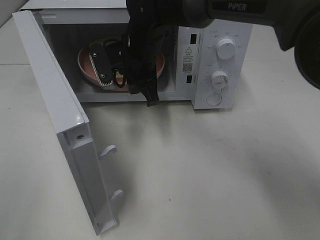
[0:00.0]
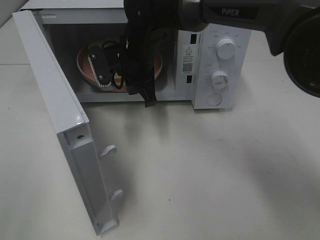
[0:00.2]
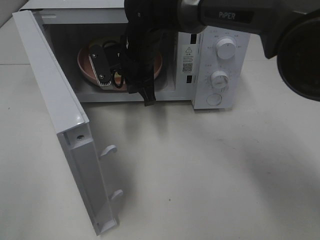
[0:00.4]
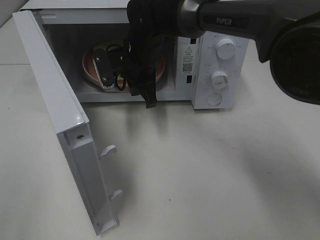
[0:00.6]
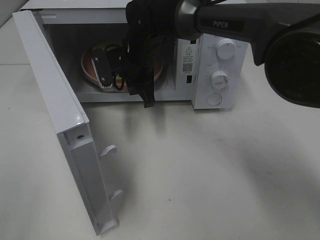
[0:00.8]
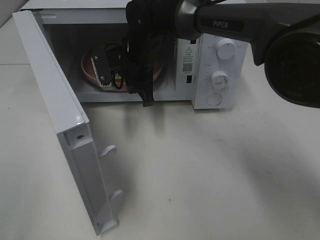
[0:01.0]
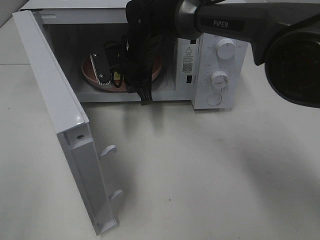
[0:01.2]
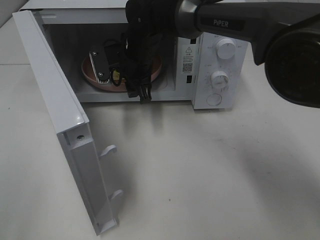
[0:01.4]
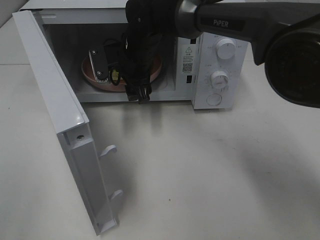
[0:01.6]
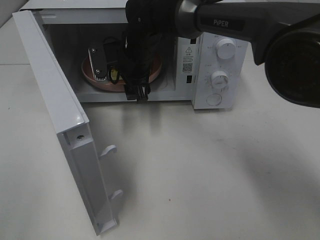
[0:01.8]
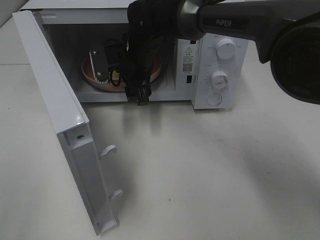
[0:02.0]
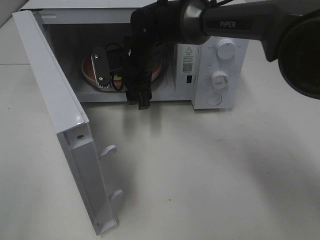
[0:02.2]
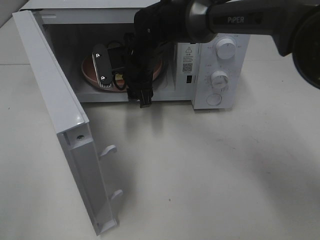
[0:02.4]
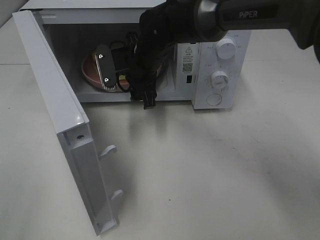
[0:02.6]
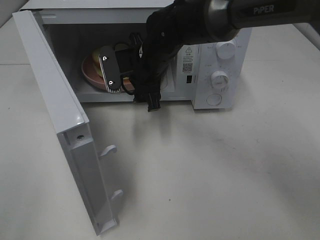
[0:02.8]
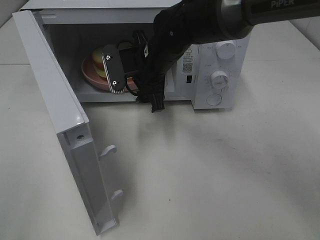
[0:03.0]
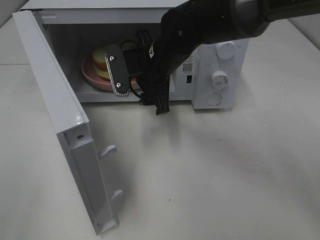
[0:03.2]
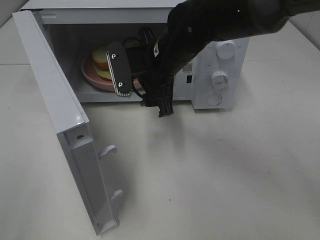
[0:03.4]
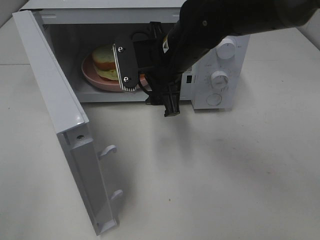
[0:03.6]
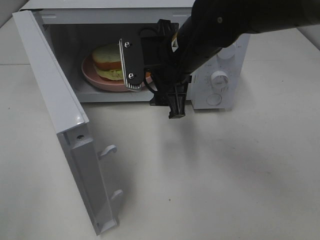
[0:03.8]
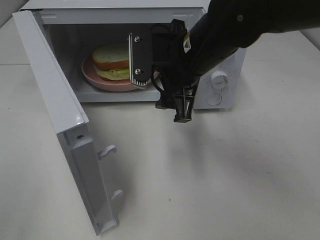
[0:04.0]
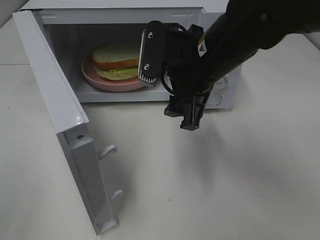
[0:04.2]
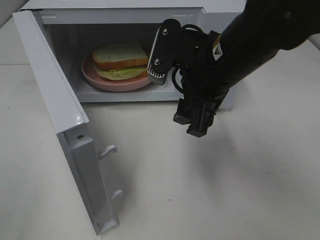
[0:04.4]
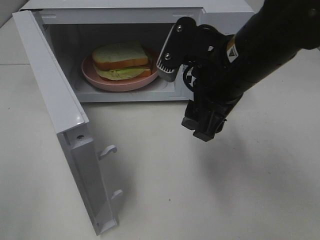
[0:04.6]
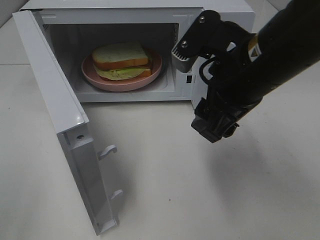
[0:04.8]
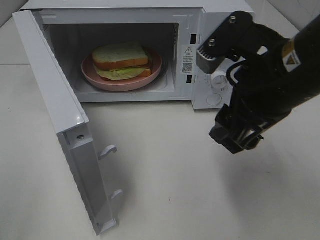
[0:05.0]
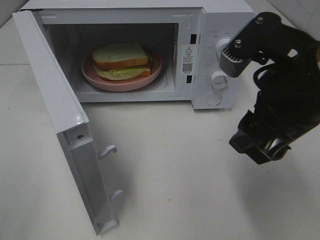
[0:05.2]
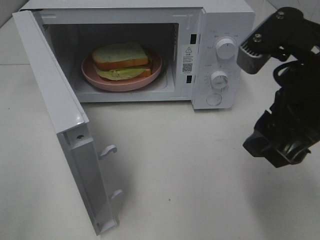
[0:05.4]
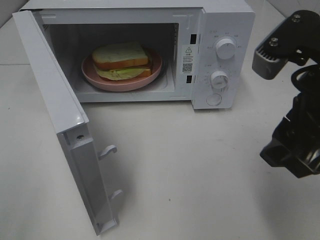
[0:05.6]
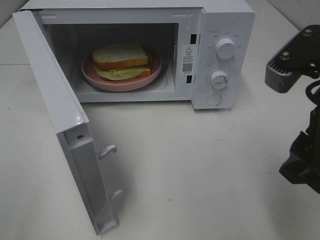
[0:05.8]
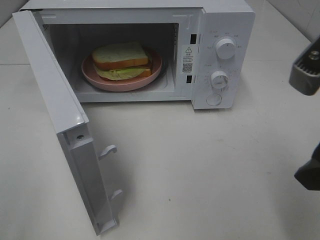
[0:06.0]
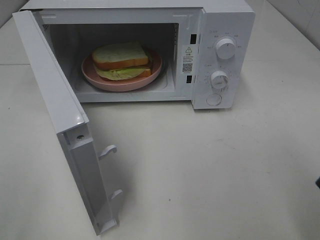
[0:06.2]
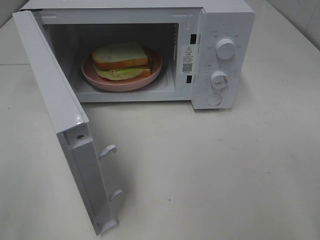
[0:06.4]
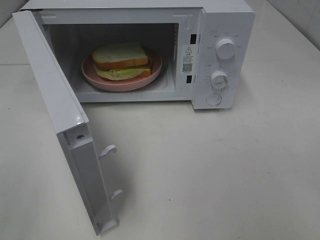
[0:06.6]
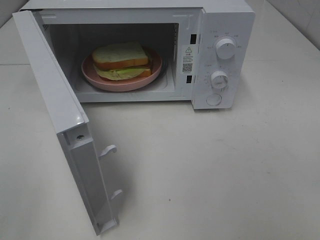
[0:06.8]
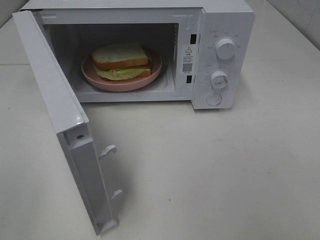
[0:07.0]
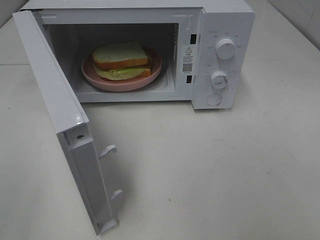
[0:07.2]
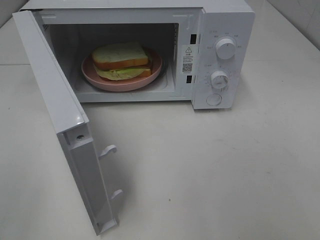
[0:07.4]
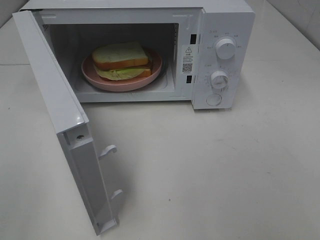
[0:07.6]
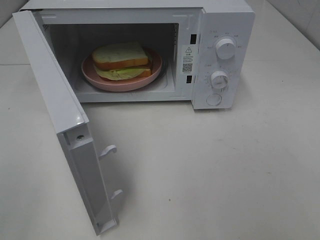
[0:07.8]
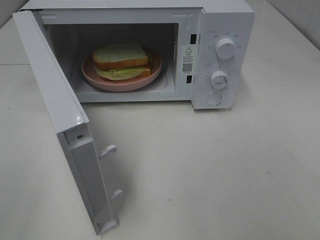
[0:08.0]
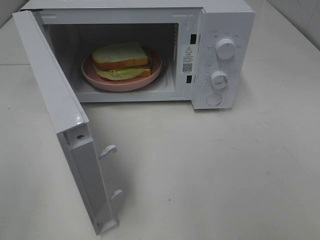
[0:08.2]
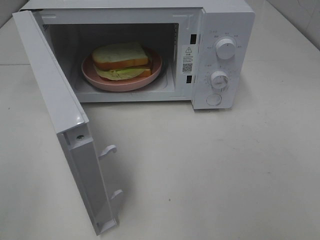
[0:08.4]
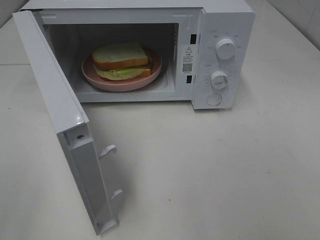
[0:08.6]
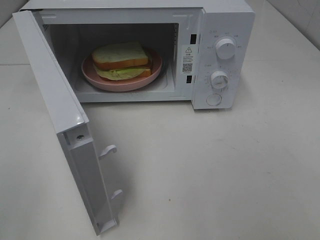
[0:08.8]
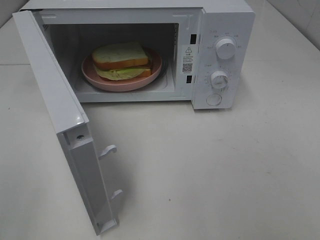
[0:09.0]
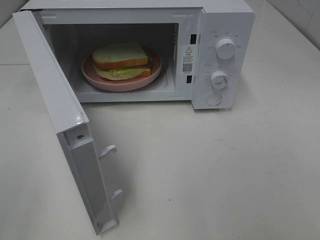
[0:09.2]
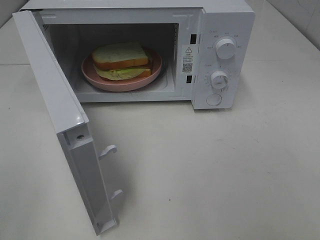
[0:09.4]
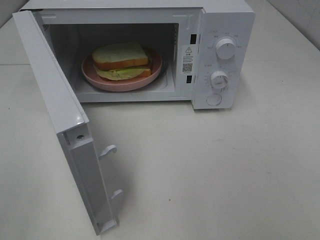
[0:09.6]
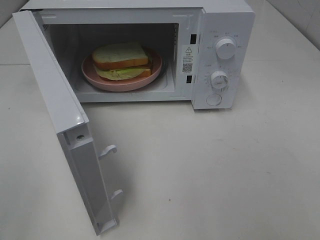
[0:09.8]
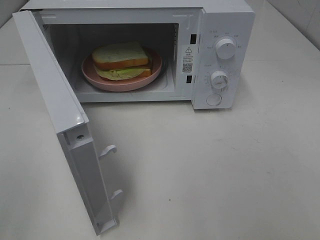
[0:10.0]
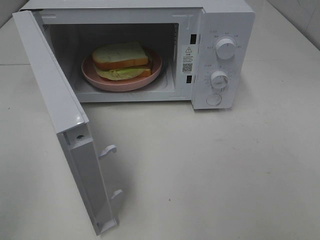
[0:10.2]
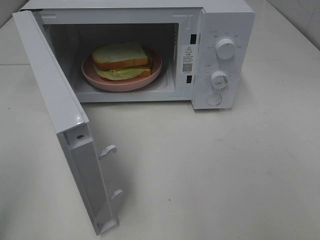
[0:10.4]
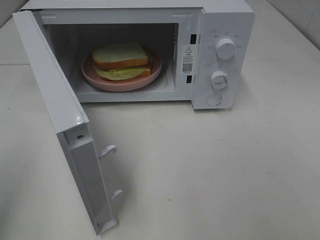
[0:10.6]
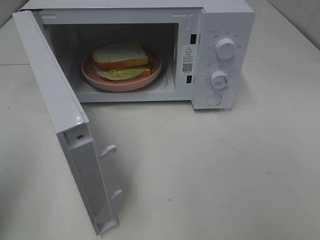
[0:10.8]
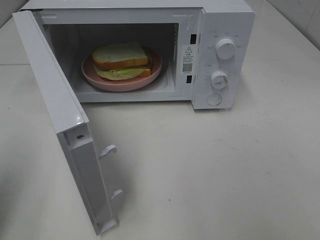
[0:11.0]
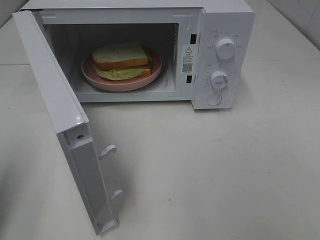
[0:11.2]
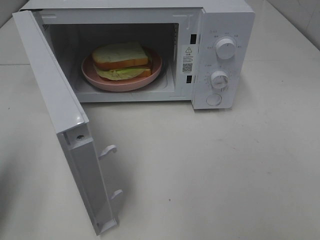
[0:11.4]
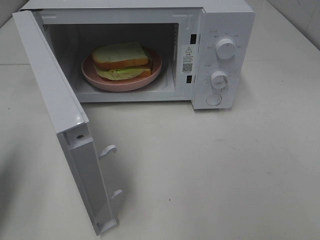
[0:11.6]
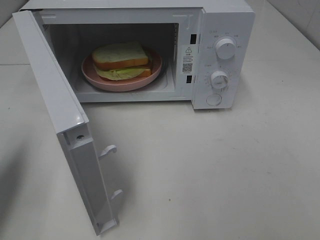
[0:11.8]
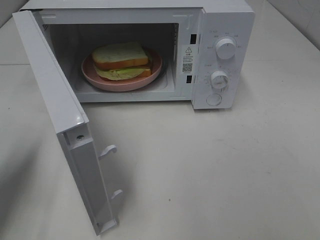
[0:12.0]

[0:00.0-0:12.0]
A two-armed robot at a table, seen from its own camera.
Task of the whole recording: Heat Sandwich.
Step, 0:00.0 to 0:03.2: Right hand: place the plate in the microwave.
0:00.0 to 0:01.6: The right gripper opens.
0:01.6 to 0:03.0: The right gripper moves some 5 cm.
0:03.0 to 0:04.4: The right gripper goes roughly 15 cm backward, to the right and upward.
0:04.4 to 0:06.0: The right gripper goes roughly 15 cm backward and to the right.
0:06.0 to 0:07.6: The right gripper is displaced backward and to the right by approximately 15 cm.
0:07.6 to 0:09.0: Both grippers stay about where they are.
0:10.4 to 0:12.0: The left gripper travels forward and downward by approximately 15 cm, and closes up.

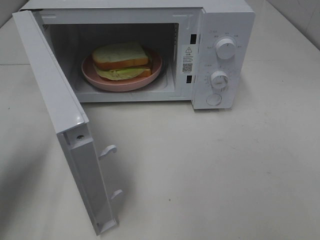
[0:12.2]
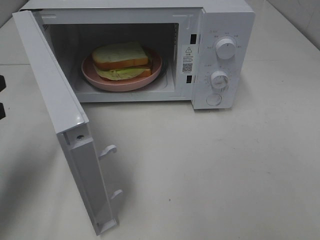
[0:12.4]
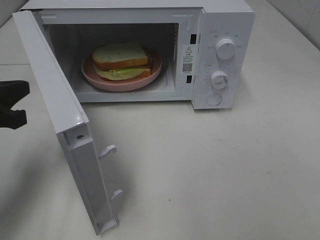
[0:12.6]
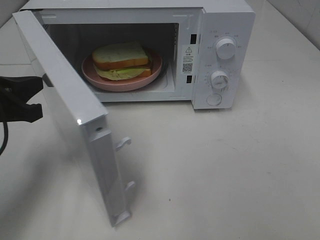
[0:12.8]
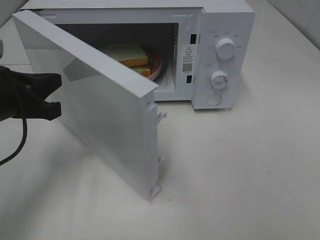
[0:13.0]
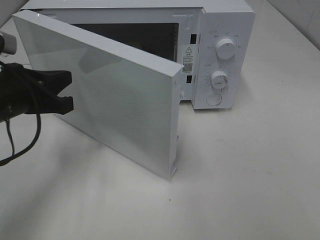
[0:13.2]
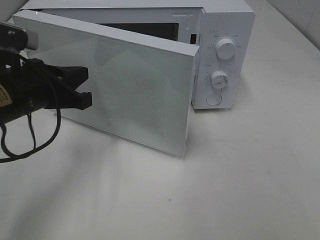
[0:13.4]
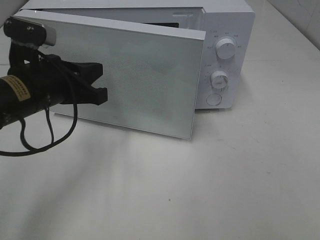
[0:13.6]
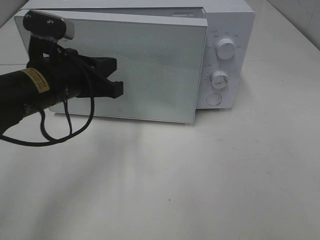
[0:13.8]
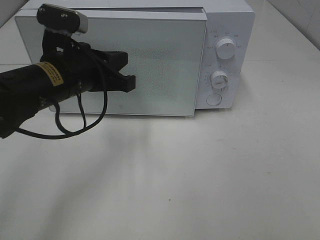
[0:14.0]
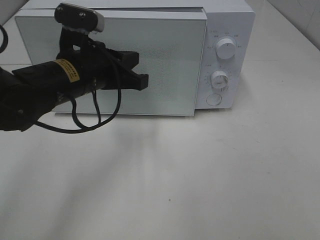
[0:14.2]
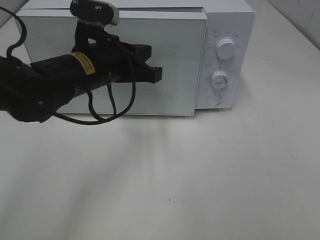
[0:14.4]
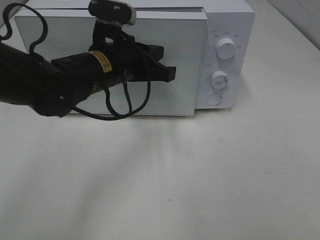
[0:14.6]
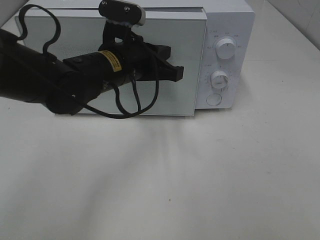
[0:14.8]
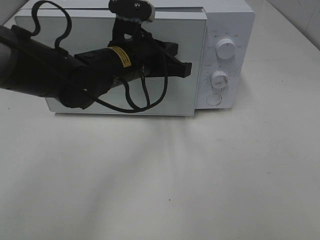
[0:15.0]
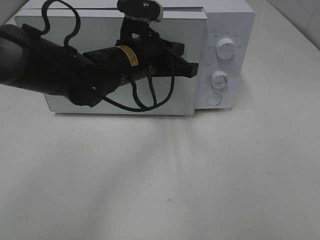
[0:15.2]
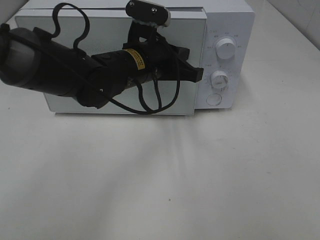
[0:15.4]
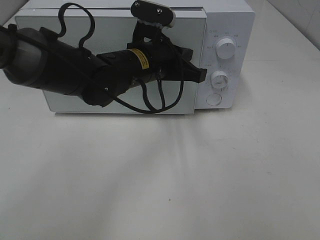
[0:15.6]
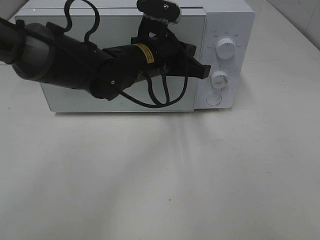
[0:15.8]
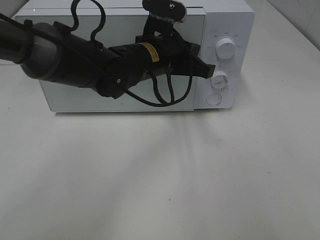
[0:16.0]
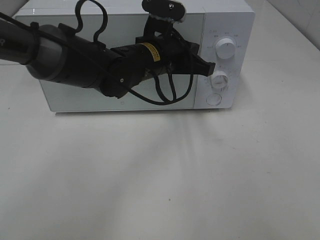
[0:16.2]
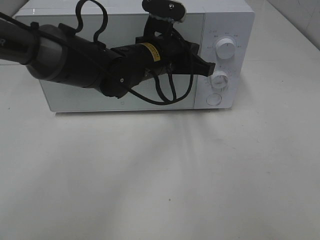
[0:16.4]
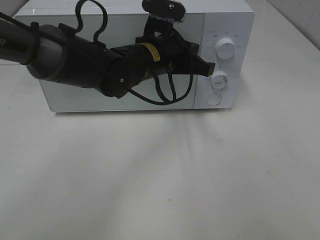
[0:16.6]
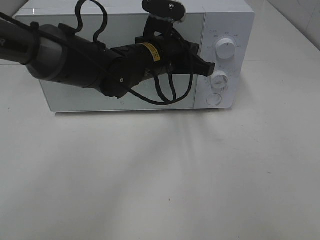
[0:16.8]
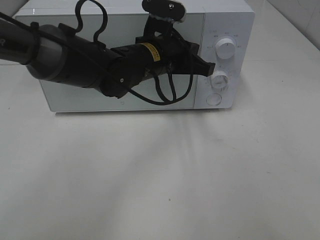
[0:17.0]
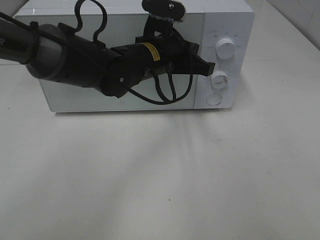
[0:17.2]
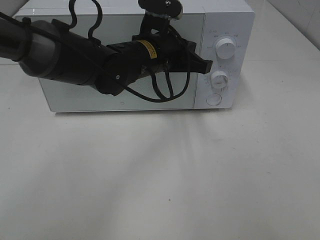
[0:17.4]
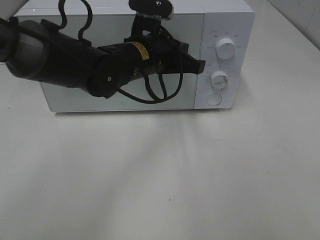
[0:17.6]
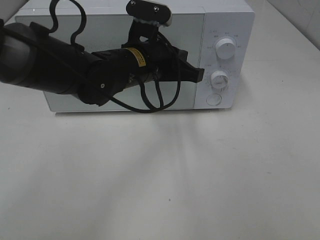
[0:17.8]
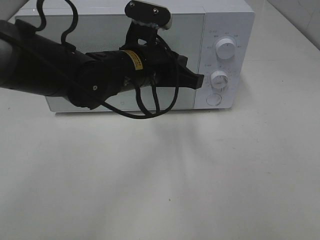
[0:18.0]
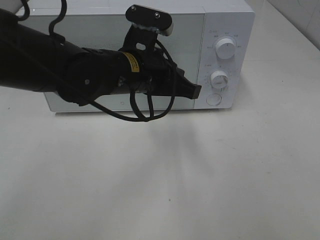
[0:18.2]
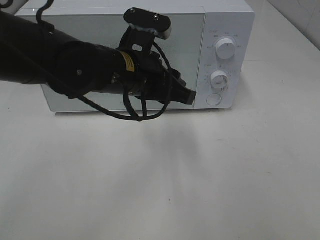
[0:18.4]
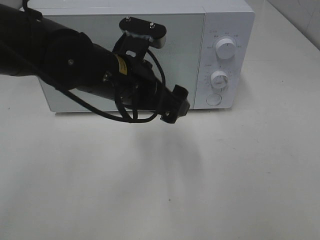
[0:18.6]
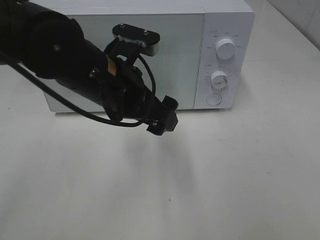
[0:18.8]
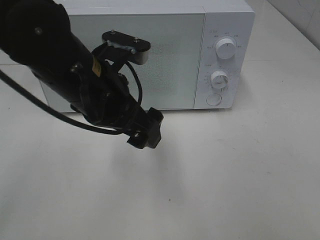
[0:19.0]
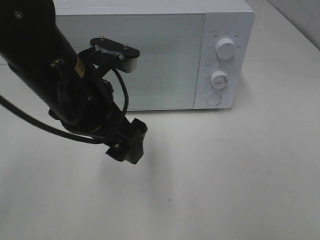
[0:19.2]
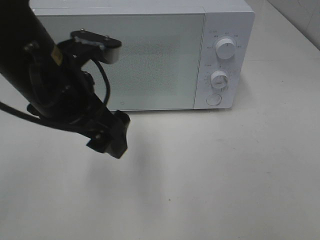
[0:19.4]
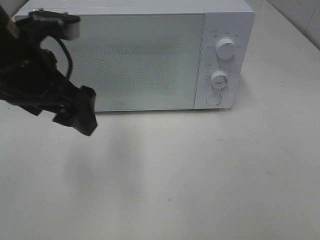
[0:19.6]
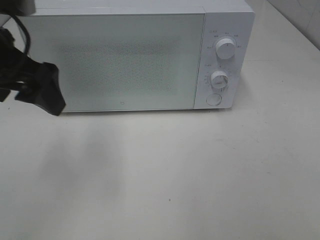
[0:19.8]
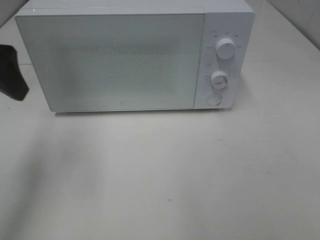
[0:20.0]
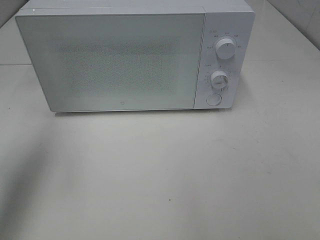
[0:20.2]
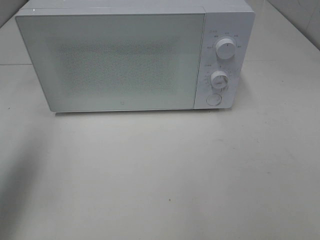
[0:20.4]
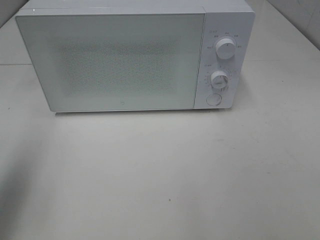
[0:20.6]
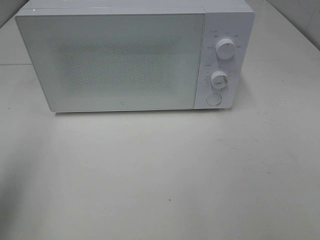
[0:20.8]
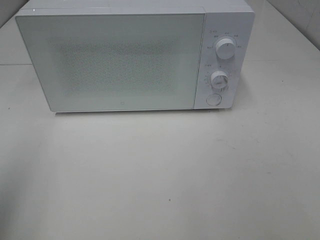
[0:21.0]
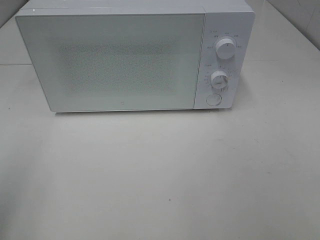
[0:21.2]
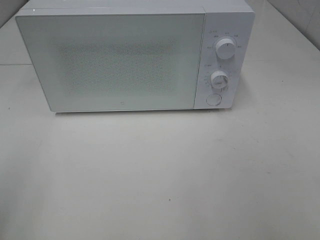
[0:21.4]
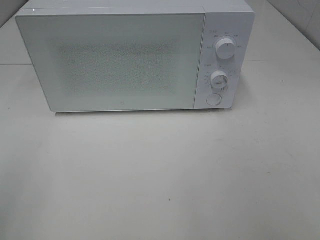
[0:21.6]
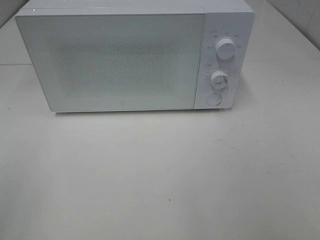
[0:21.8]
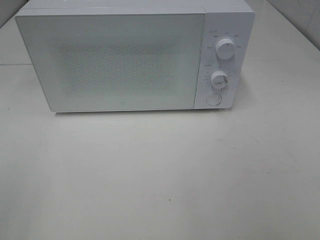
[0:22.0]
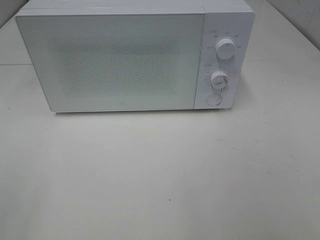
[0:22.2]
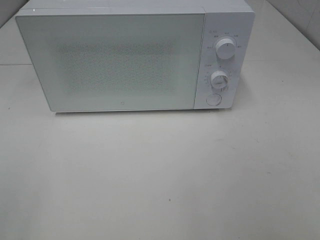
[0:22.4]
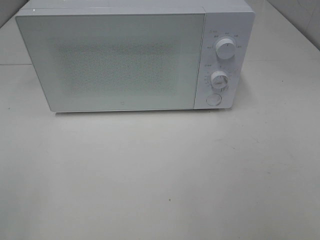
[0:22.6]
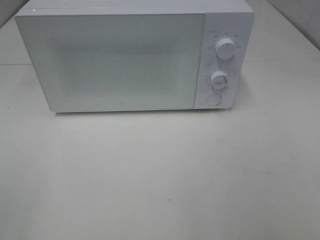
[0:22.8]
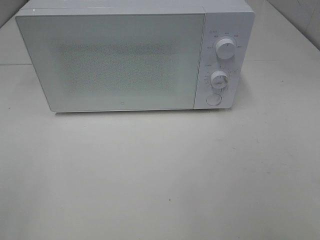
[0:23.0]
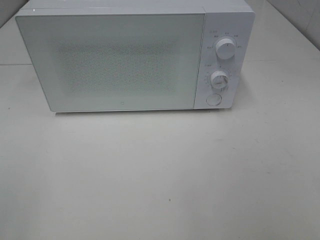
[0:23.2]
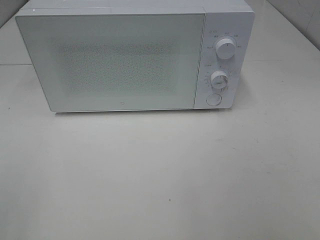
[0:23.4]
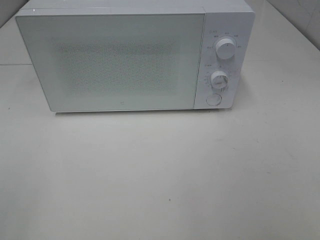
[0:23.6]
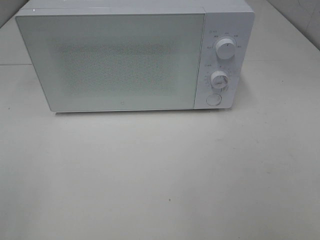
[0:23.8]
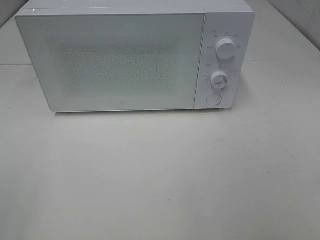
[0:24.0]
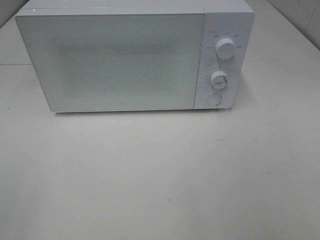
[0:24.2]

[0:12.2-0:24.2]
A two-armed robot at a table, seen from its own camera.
Task of the whole recording: Heat Sandwich.
Step, 0:12.2 to 0:18.2: Left hand: close the microwave door.
0:12.2 to 0:13.8: The left gripper travels to the right and forward by about 15 cm.
0:13.8 to 0:15.2: The left gripper moves to the right and forward, about 15 cm.
0:15.2 to 0:16.6: The grippers move only a little.
0:16.6 to 0:18.2: The left gripper is displaced backward by some 5 cm.
0:18.2 to 0:19.8: The left gripper is displaced to the left and upward by approximately 20 cm, and opens up.
0:19.8 to 0:21.2: The left gripper shifts about 20 cm backward and to the left.
0:22.6 to 0:24.2: Both grippers stay put.
